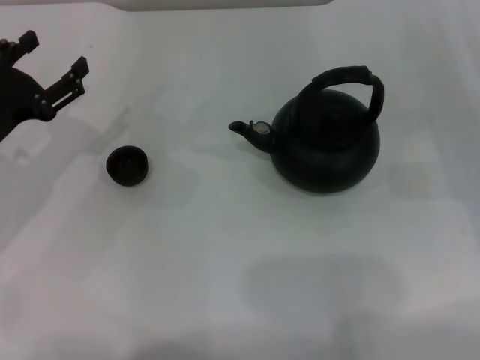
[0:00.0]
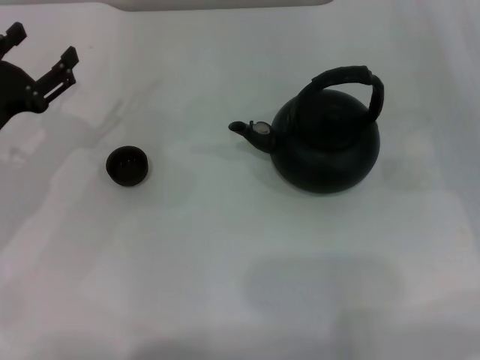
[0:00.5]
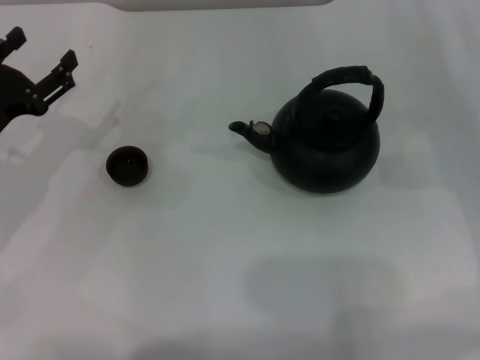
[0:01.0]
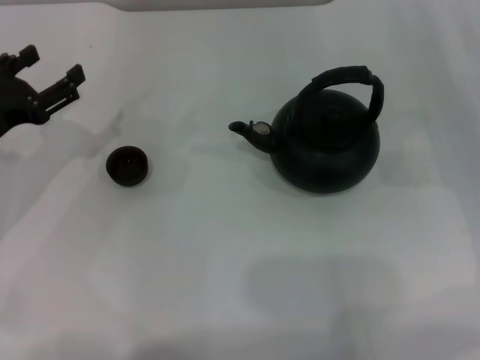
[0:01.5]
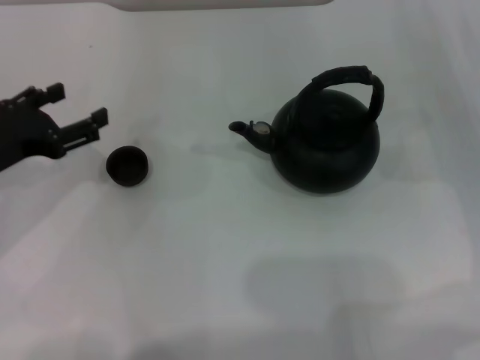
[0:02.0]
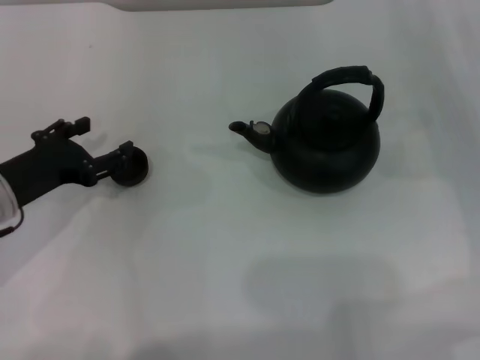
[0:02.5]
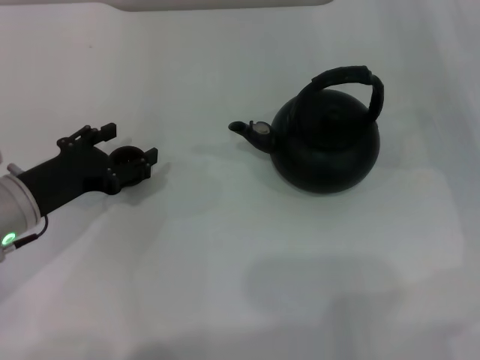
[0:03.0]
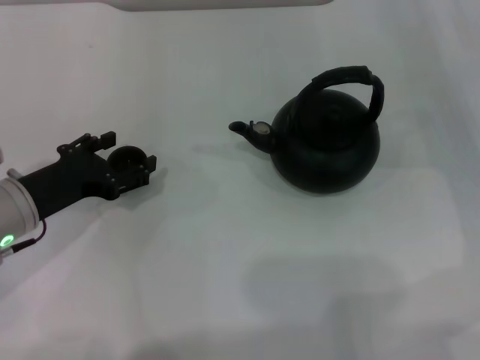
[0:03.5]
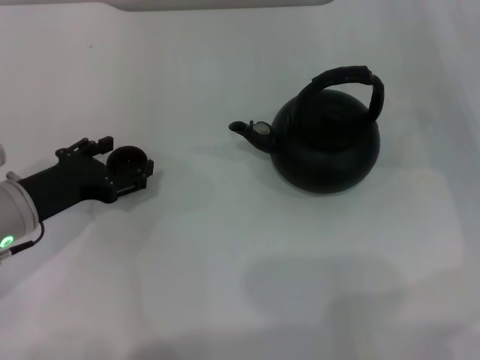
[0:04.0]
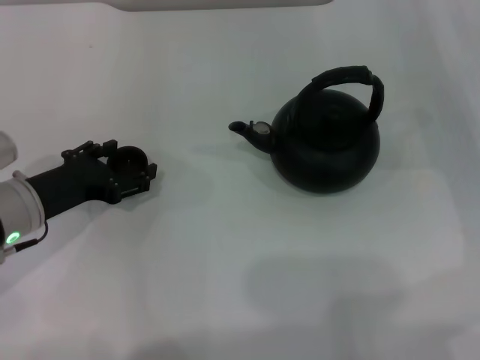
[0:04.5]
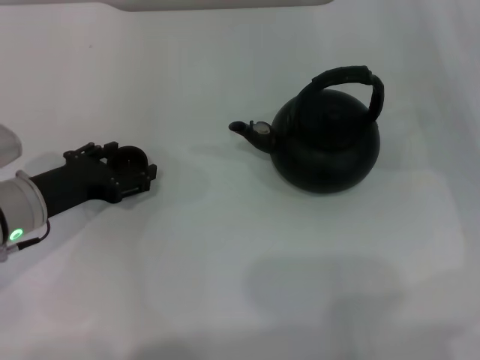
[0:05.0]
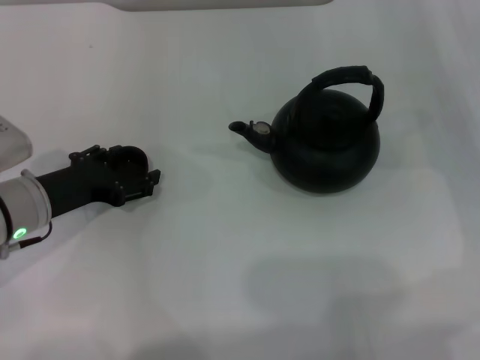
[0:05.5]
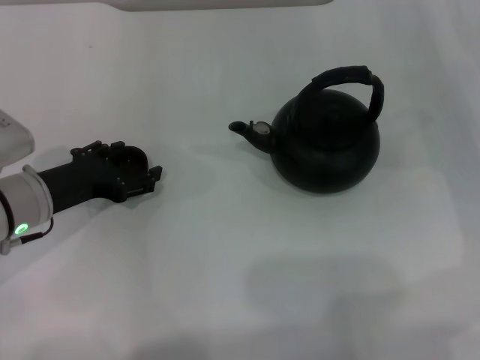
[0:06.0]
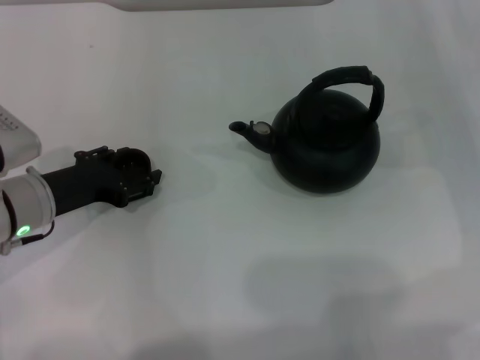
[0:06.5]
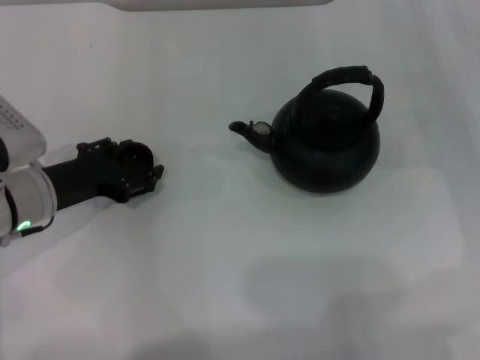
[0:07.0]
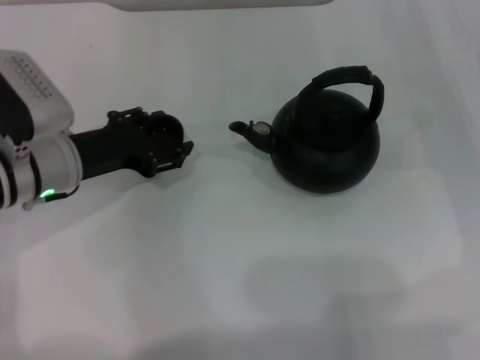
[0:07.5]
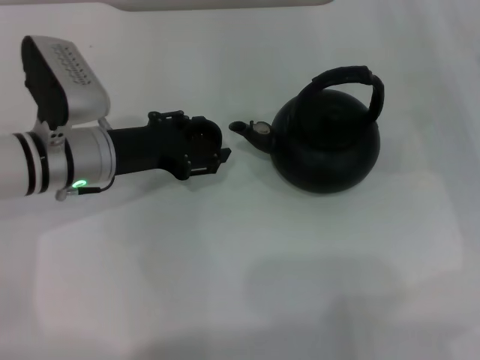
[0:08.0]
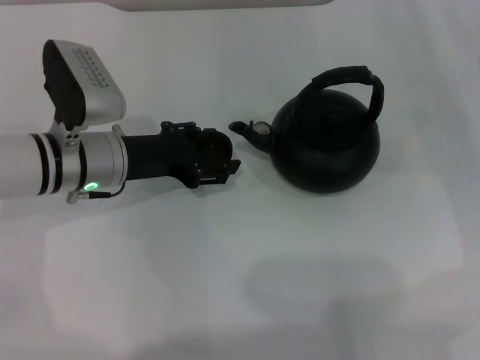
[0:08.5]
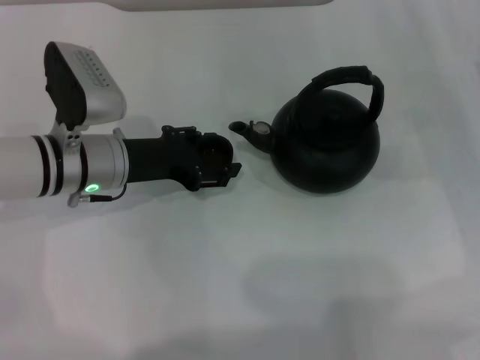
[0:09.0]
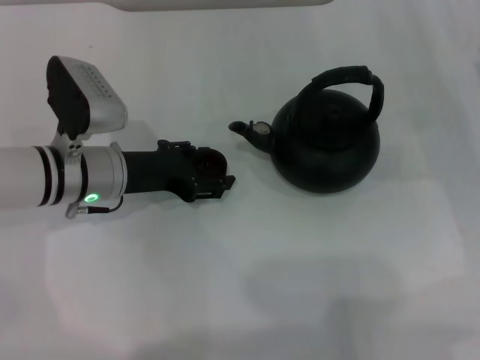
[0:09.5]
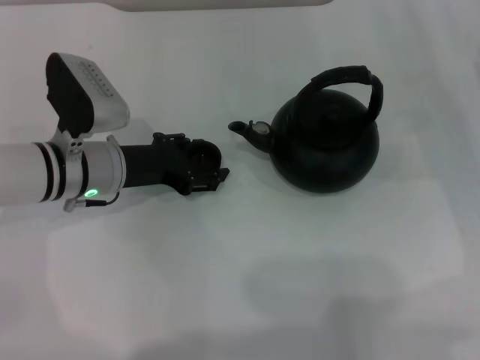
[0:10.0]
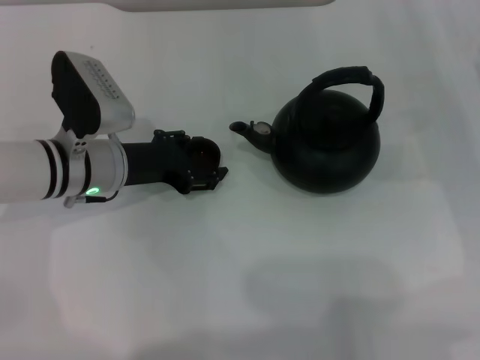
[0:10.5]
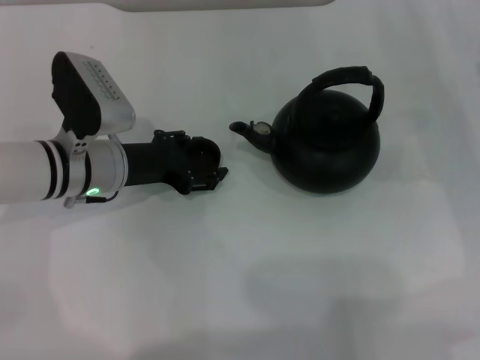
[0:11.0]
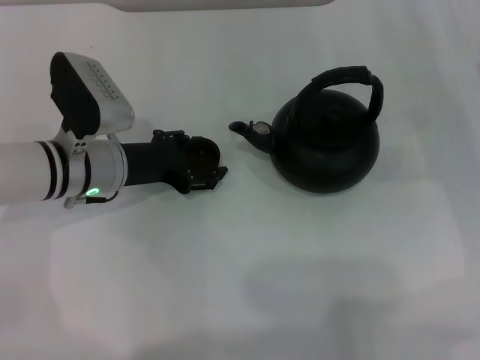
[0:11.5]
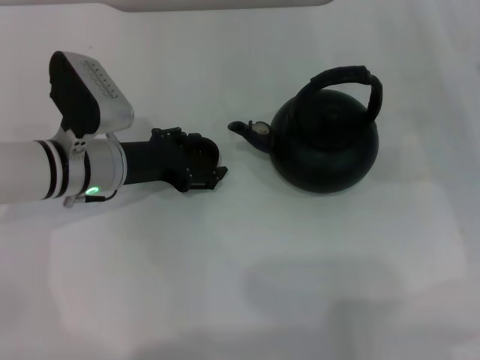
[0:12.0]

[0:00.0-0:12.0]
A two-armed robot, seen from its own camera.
Task of the whole recording: Grasp the handle of the teapot with one hand and pour tea into the teacup.
Step, 0:00.0 to 0:07.0: Pick up the teacup with the left gripper.
0:02.0 to 0:04.0: The left gripper shifts by some 5 cm.
0:04.0 to 0:06.0: There are only small adjustments of the grippers.
0:06.0 to 0:08.0: The left gripper heads to the right, covering roughly 5 cm, and closes.
0:08.0 to 0:10.0: The grippers move only a little.
0:10.0 to 0:12.0: The left gripper opens its fingers.

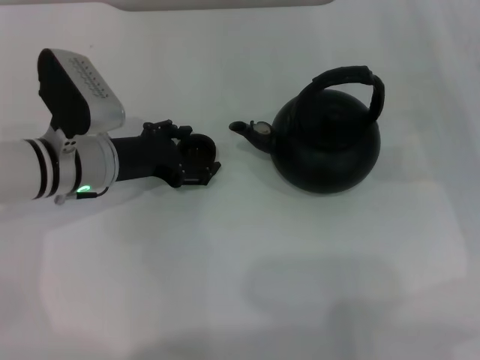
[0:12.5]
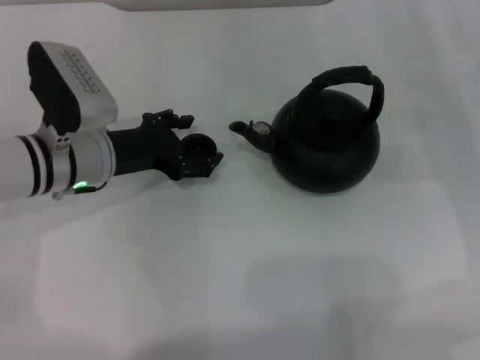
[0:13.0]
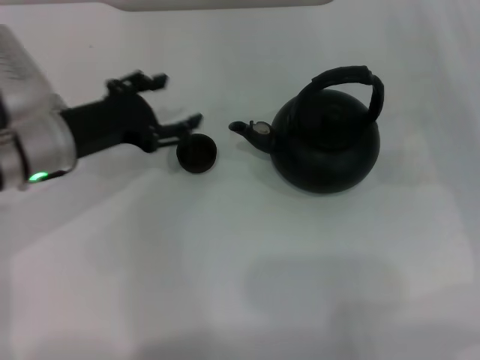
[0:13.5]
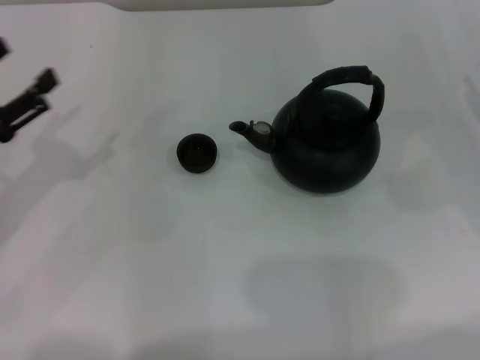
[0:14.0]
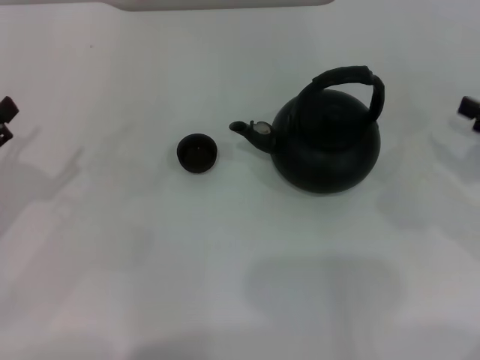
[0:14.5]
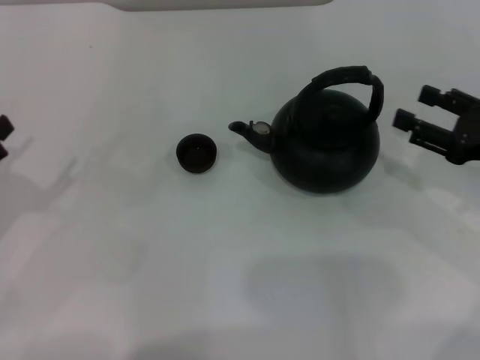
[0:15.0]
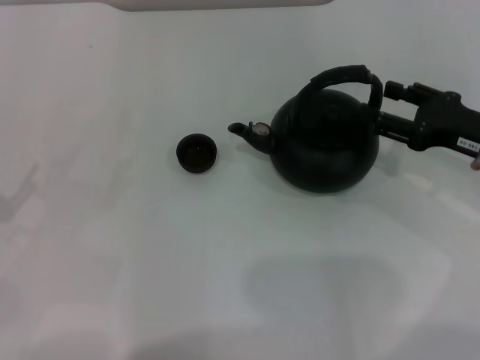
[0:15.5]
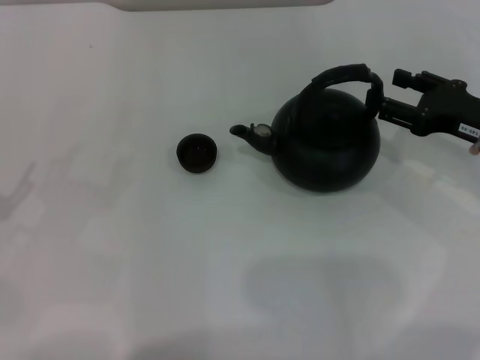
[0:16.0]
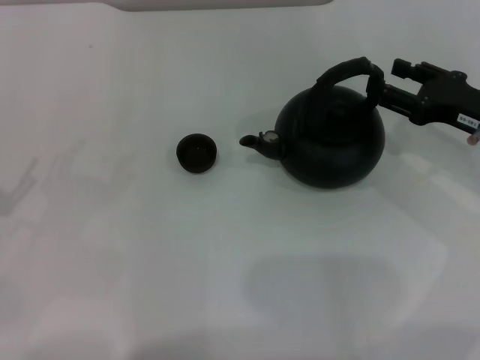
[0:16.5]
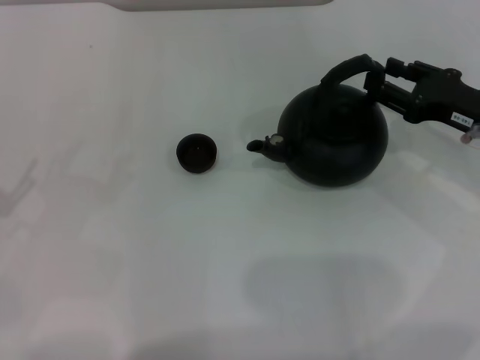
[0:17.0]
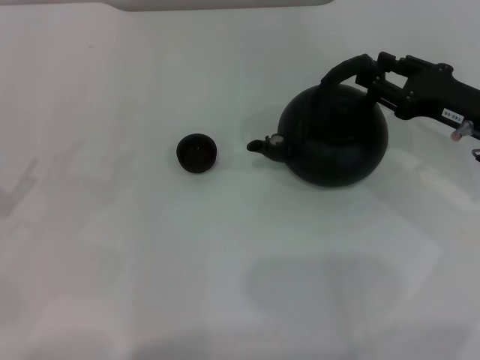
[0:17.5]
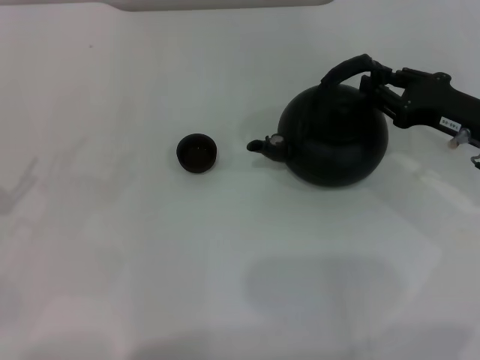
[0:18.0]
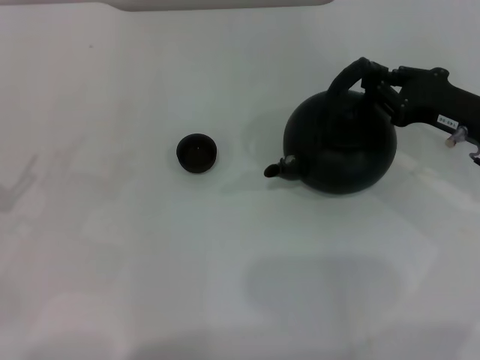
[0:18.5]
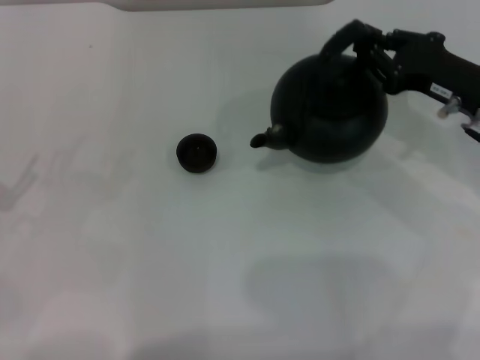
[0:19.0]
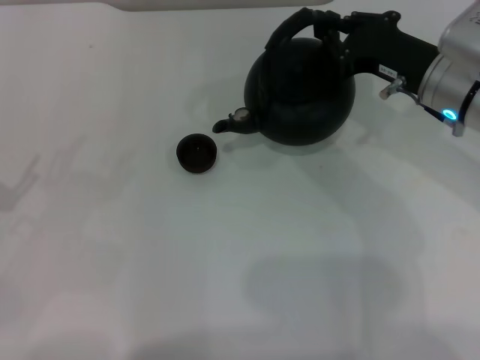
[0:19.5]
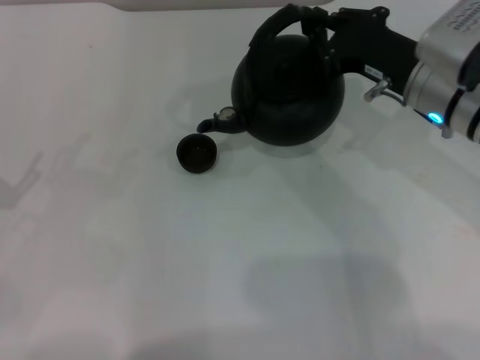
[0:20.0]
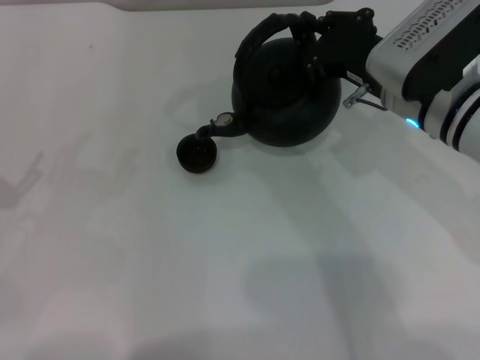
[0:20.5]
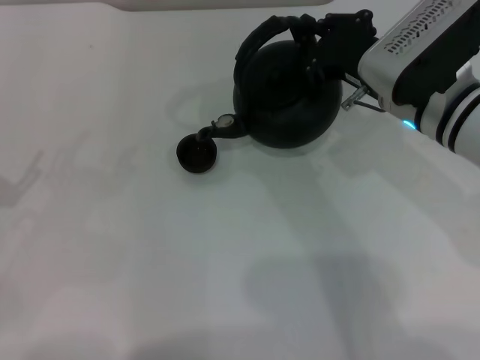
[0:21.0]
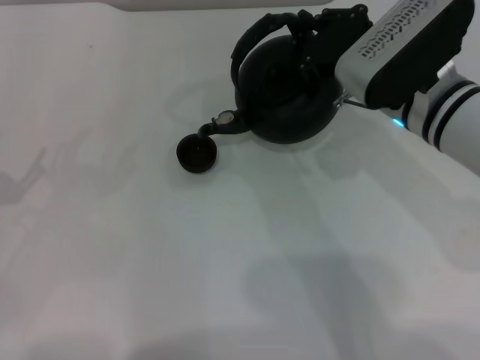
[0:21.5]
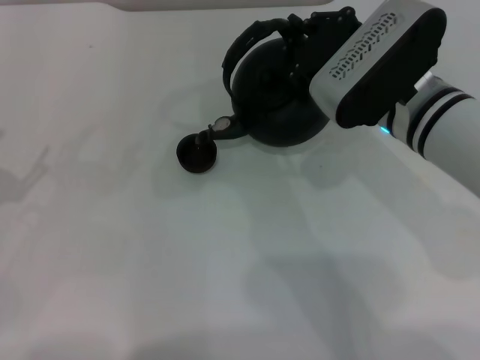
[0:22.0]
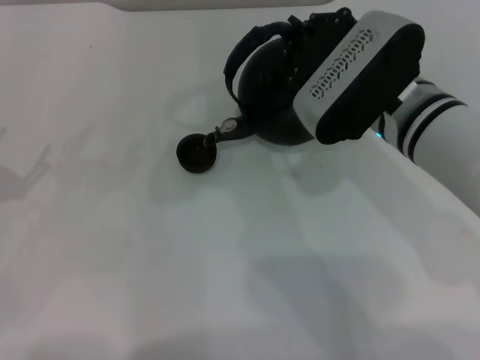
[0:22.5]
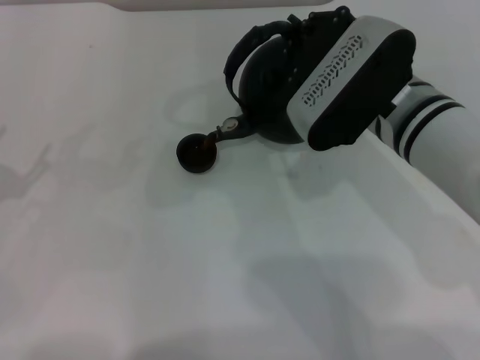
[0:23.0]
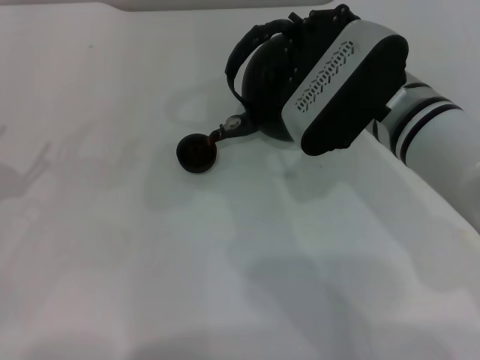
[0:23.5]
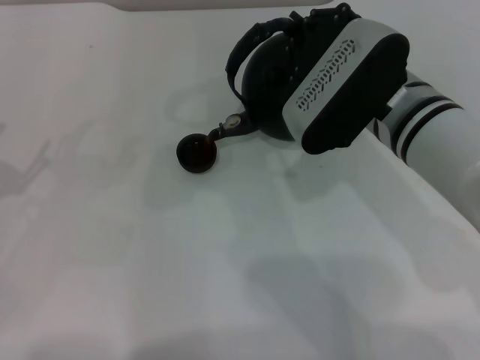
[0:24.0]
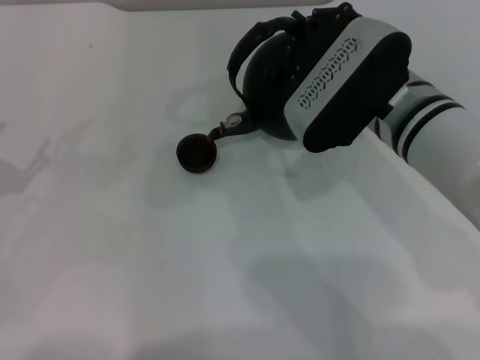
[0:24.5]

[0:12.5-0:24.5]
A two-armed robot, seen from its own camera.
Task of the whole recording: Grasp the handle of the teapot with one hand and pour tea into the teacup.
Step, 0:13.5 to 0:19.0: Pick up the teapot with the right gripper.
0:12.5 to 0:14.5: The right gripper travels backward by approximately 5 cm. Meanwhile the left gripper travels to the left and backward by about 20 cm.
0:14.5 to 0:16.5: The right gripper goes roughly 10 cm to the left and forward.
0:16.5 to 0:18.5: The right gripper closes up.
0:18.5 to 0:20.5: The right gripper shifts some 10 cm to the left and upward.
0:20.5 to 0:22.5: The grippers move only a little.
0:22.5 to 0:24.5: The grippers move only a little.

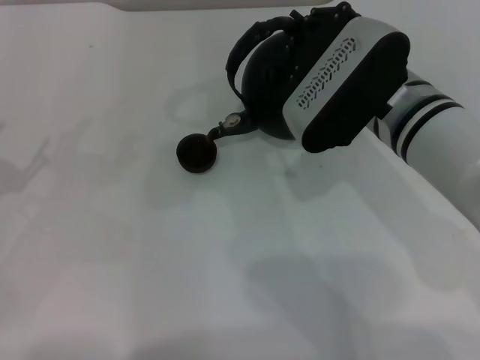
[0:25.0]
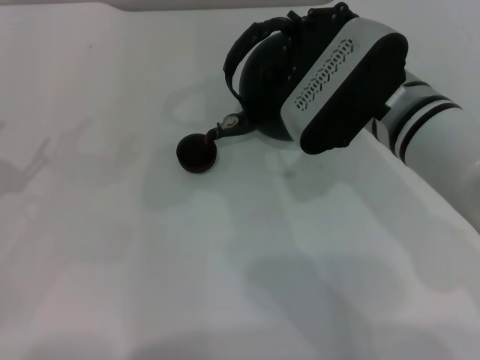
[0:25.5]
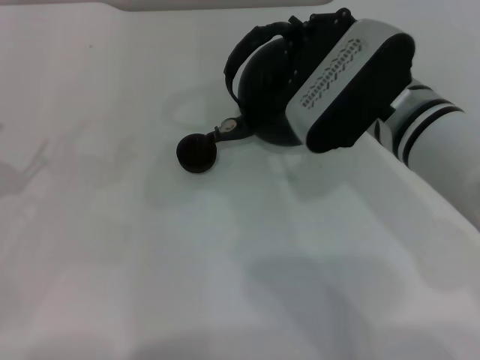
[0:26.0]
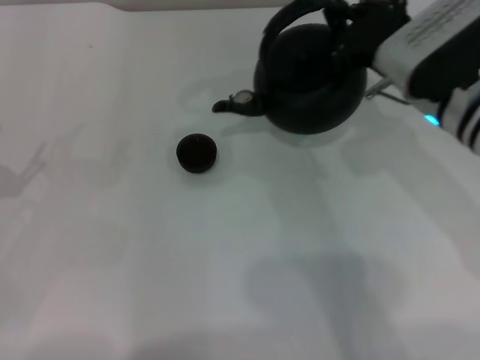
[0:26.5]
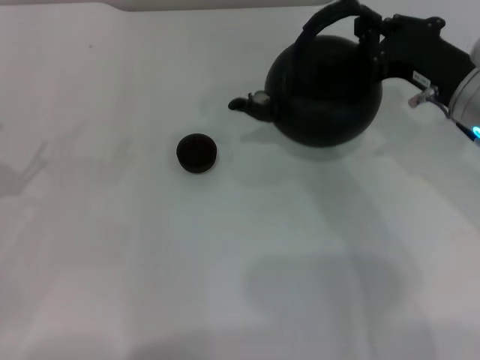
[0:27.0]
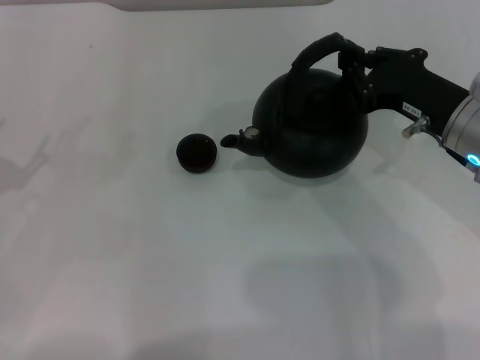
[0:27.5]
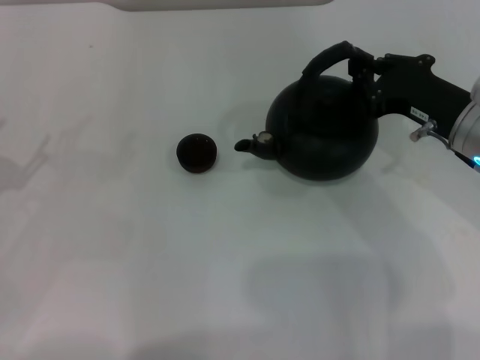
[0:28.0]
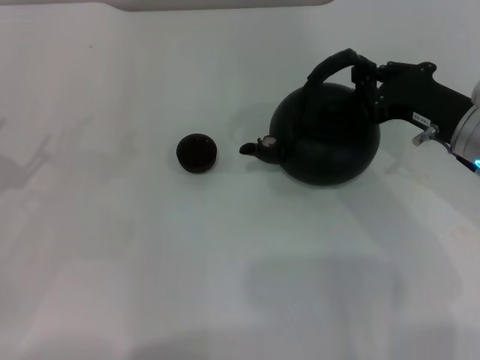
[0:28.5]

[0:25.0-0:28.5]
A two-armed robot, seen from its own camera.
Task of the whole recording: Grasp the handle of the teapot with one hand and pour tea into the teacup.
0:25.0 to 0:27.0: The right gripper shifts approximately 10 cm to the right.
0:27.0 to 0:28.5: There are only small adjustments of the grippers.
